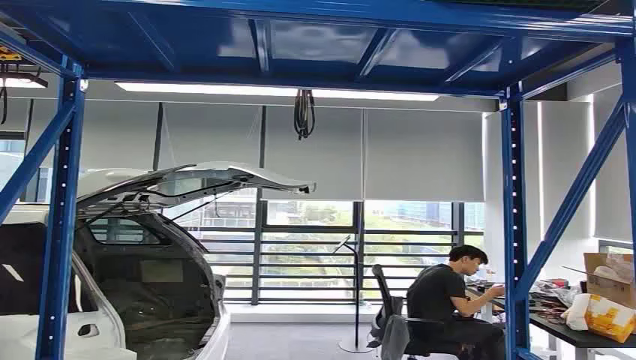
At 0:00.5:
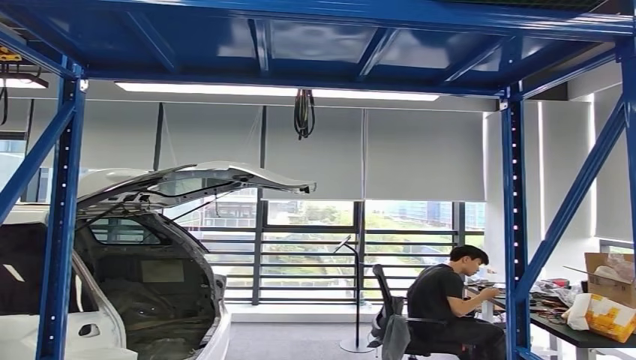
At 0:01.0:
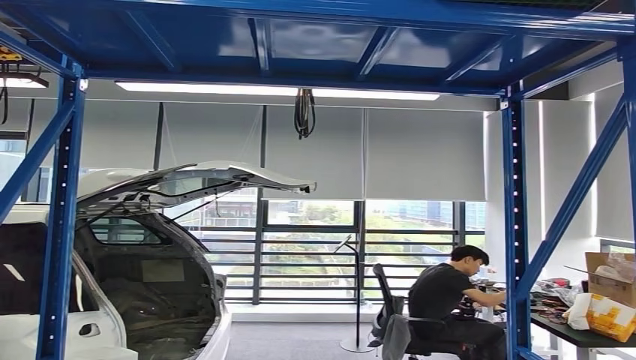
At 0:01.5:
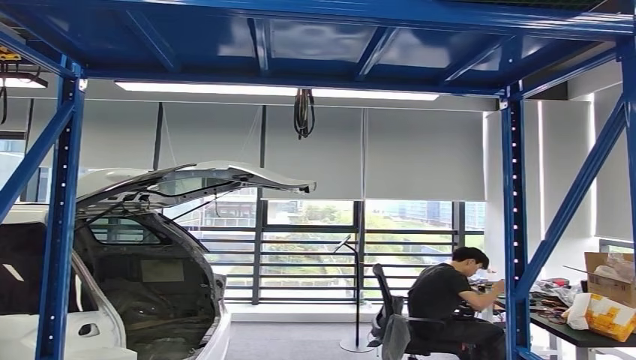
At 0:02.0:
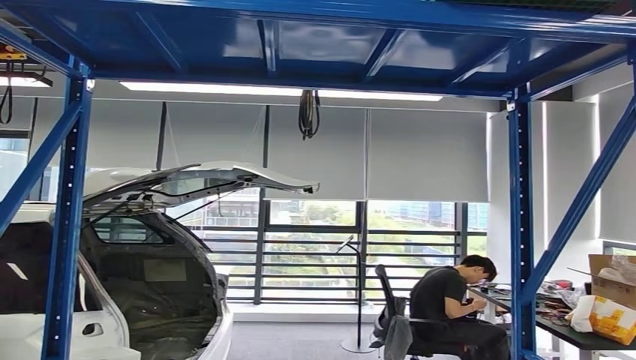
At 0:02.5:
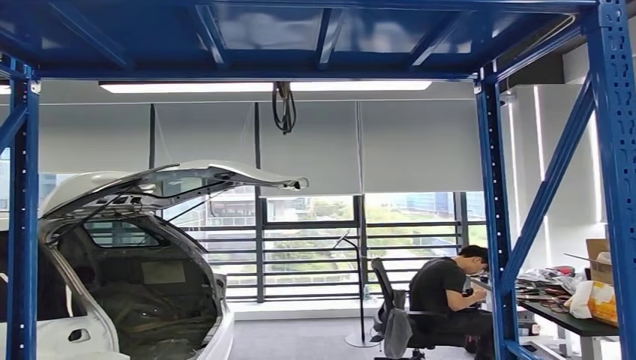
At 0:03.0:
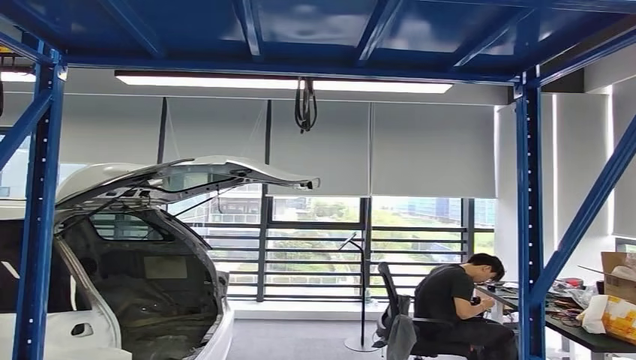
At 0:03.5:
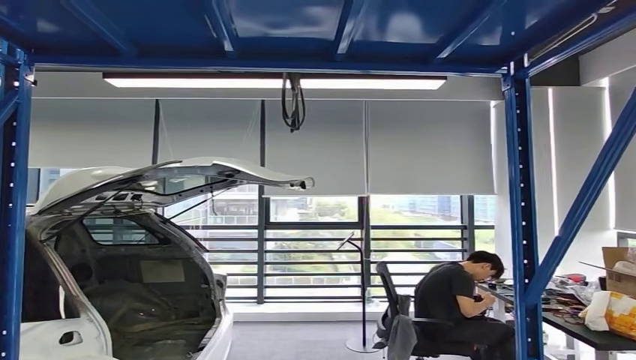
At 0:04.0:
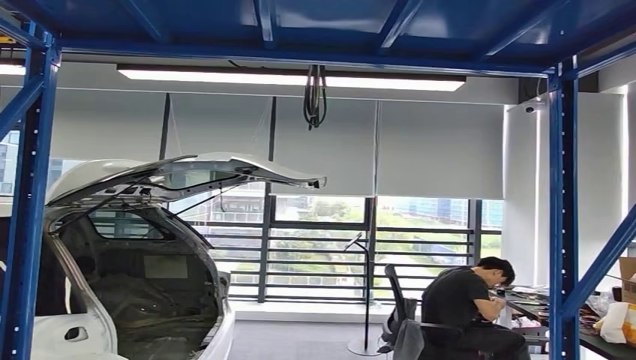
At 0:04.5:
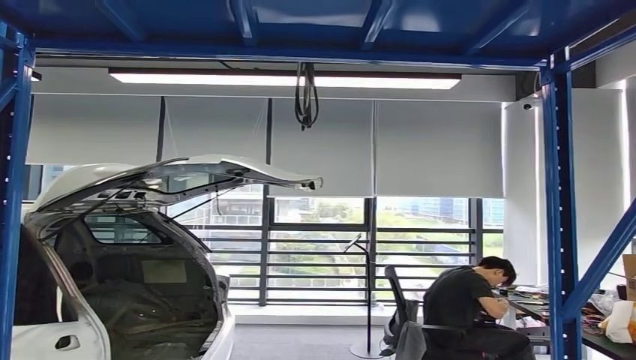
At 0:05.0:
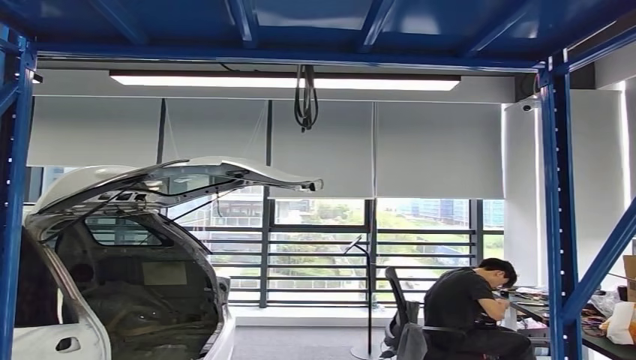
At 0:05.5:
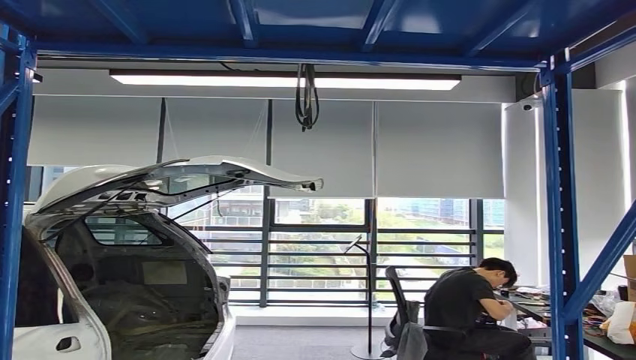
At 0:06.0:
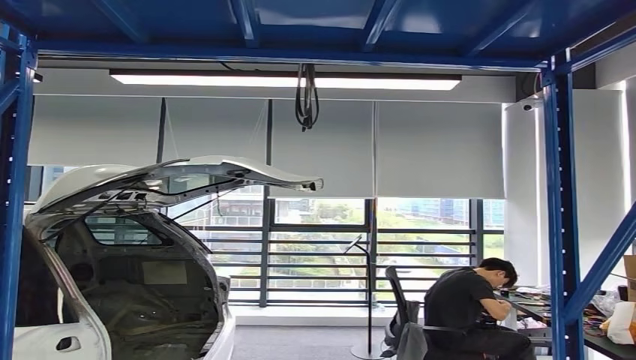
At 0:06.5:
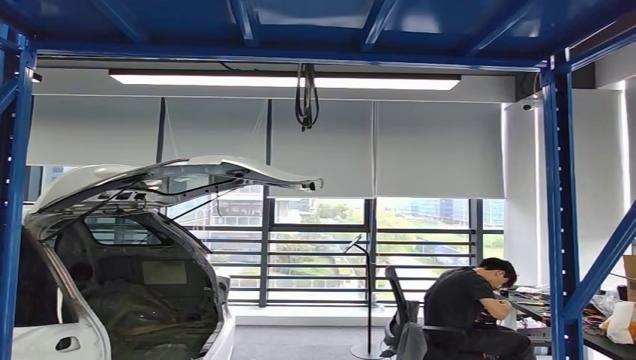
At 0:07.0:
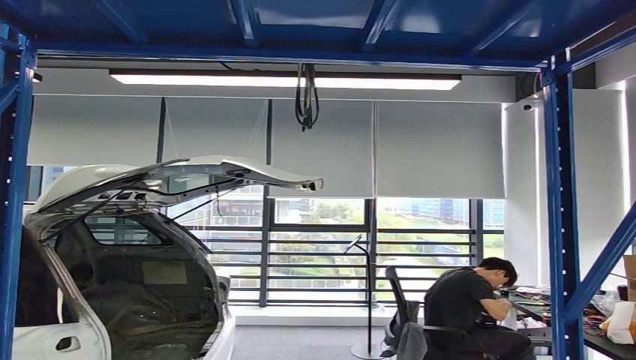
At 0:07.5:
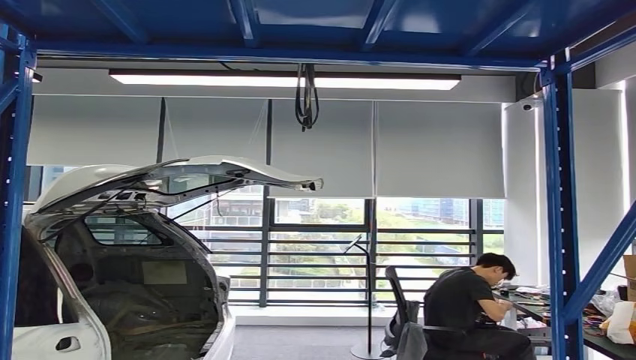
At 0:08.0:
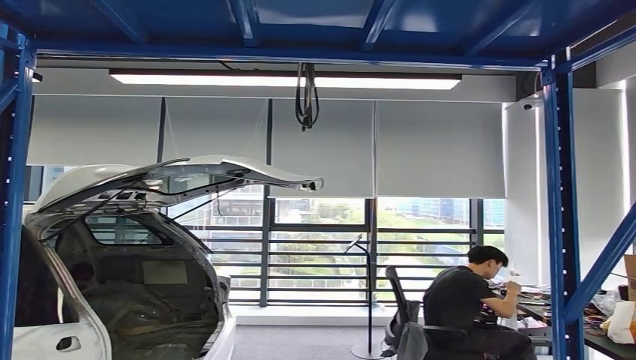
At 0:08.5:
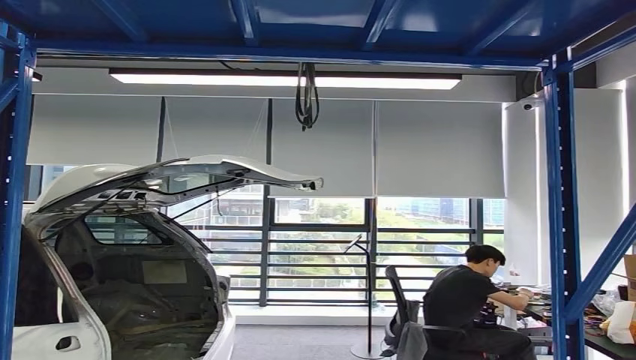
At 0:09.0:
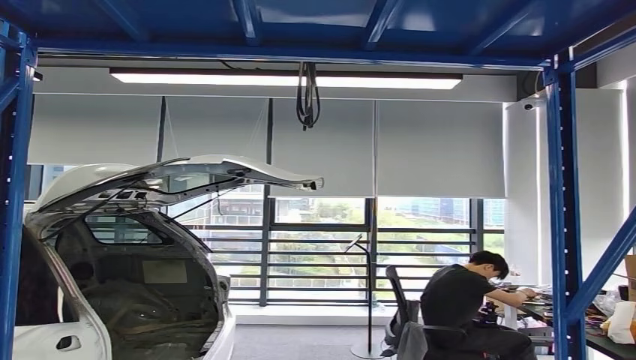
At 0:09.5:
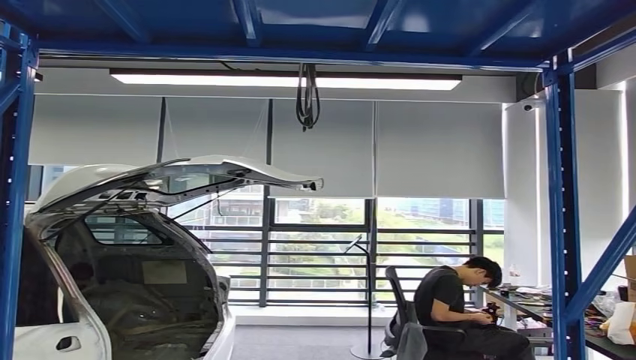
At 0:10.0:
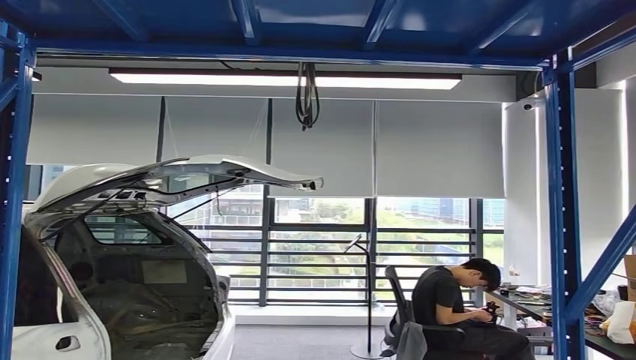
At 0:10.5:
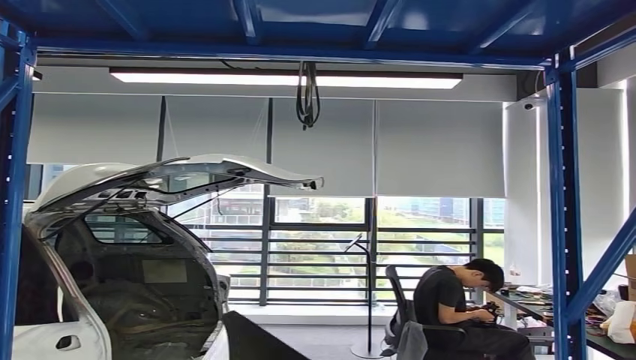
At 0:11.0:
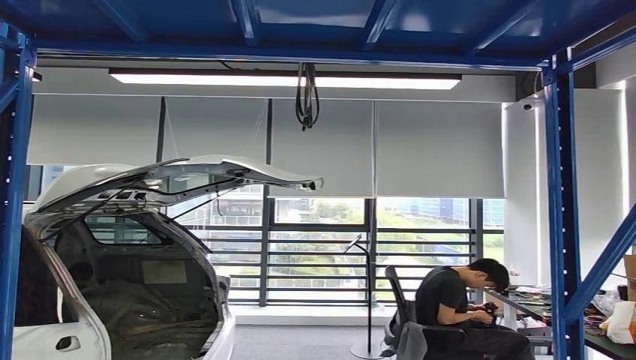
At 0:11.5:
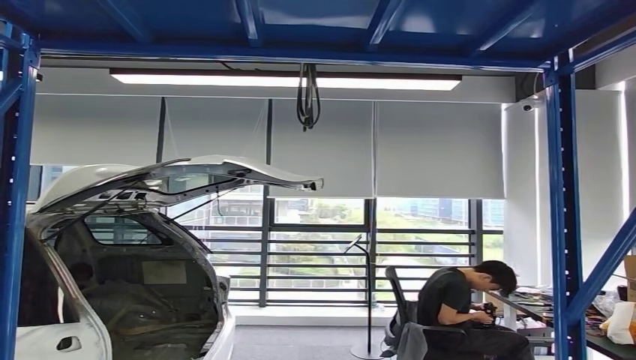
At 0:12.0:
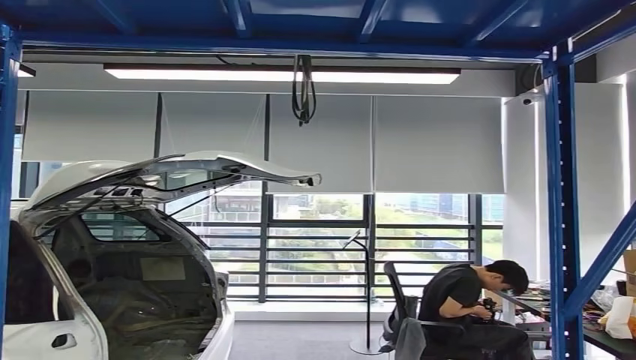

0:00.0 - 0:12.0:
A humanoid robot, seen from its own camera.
Step, 0:00.0 - 0:09.0: Pick up the small component from the shelf.
0:06.0 - 0:08.0: The right hand heads forward, covering about 10 cm.
0:08.0 - 0:10.0: The right hand shifts roughly 10 cm to the left.

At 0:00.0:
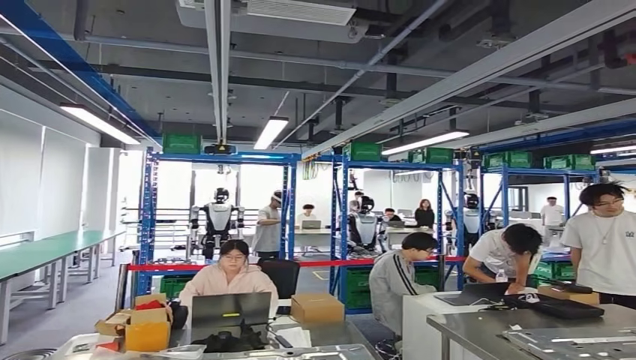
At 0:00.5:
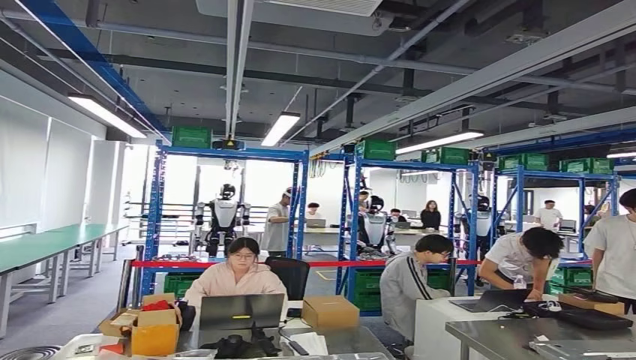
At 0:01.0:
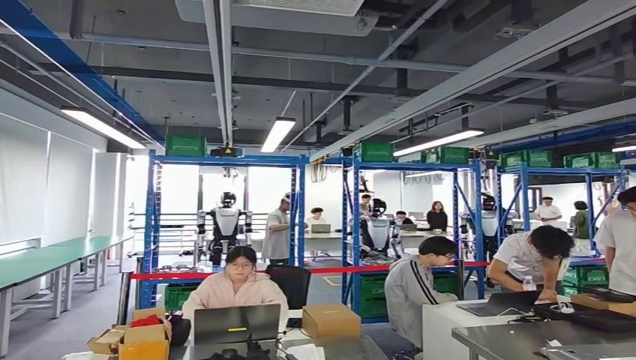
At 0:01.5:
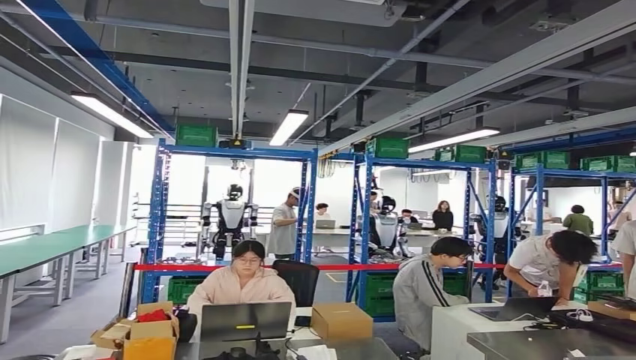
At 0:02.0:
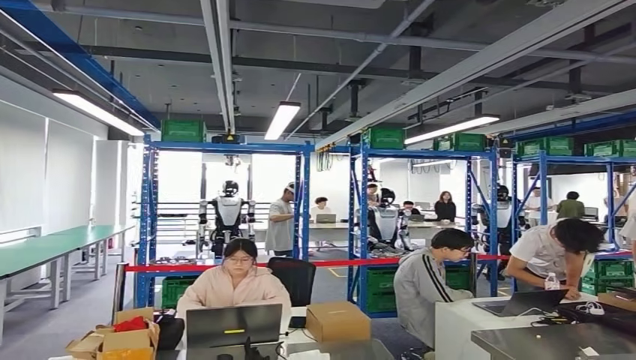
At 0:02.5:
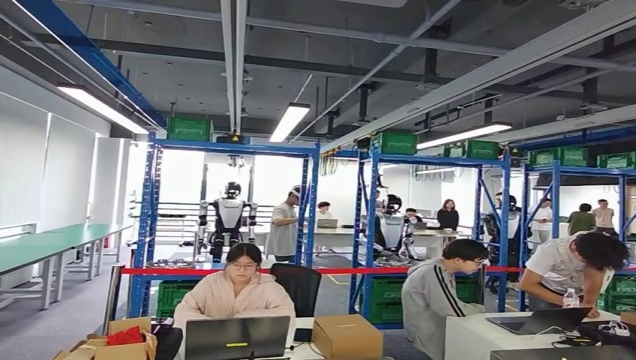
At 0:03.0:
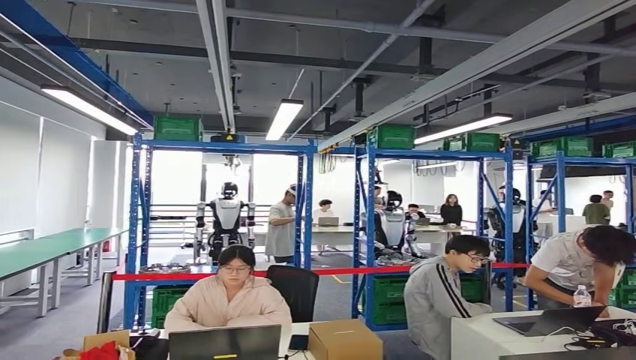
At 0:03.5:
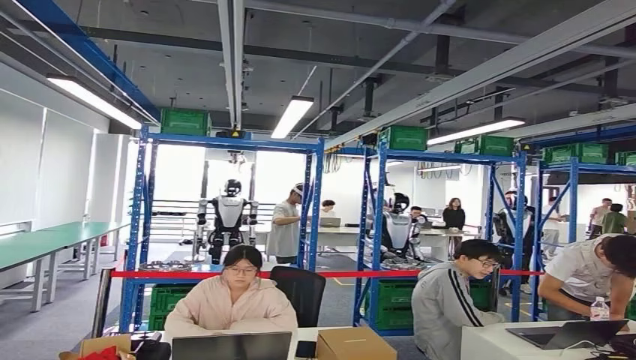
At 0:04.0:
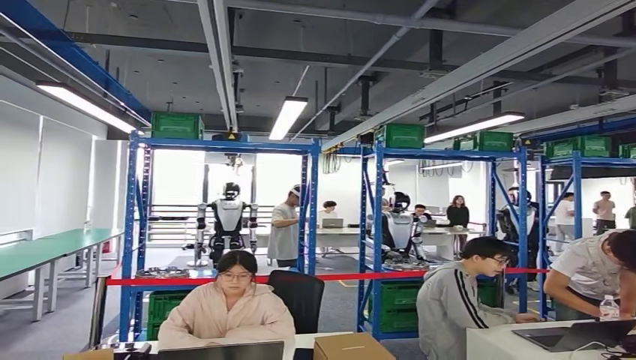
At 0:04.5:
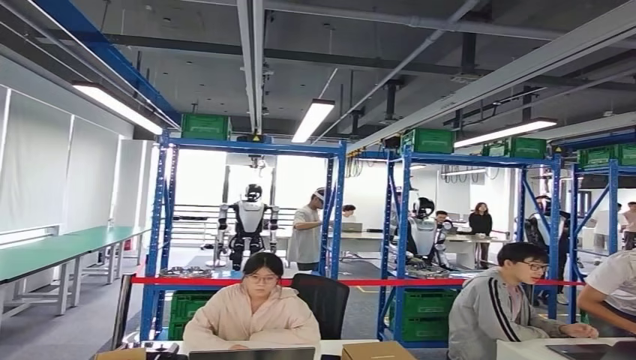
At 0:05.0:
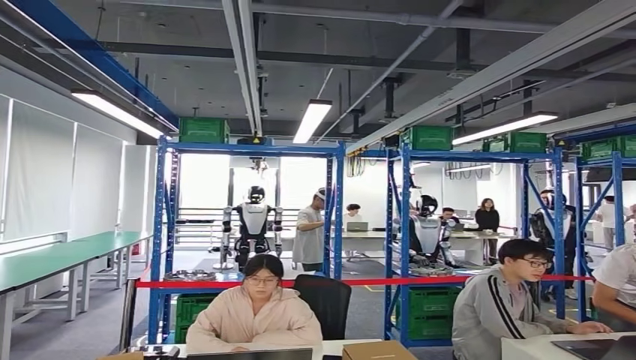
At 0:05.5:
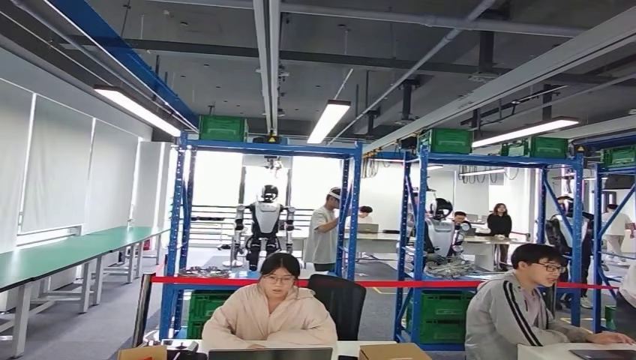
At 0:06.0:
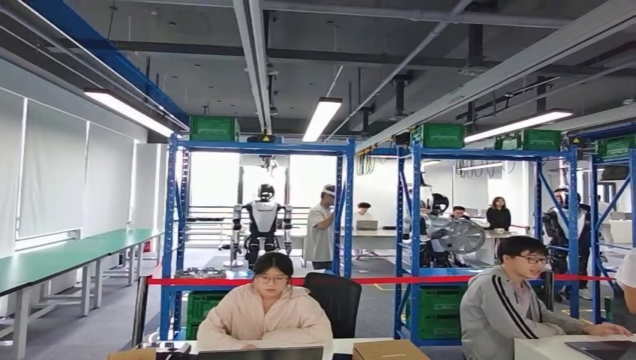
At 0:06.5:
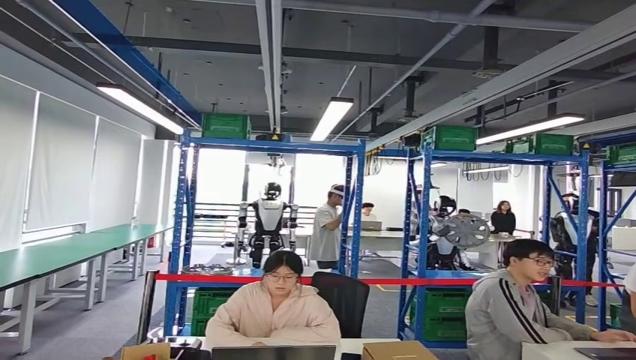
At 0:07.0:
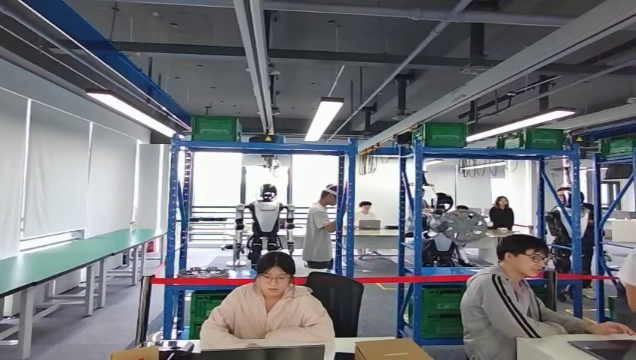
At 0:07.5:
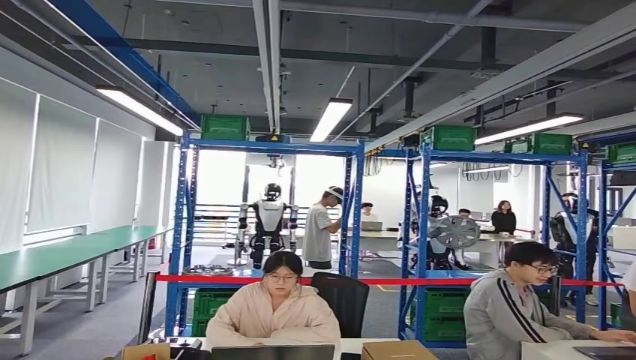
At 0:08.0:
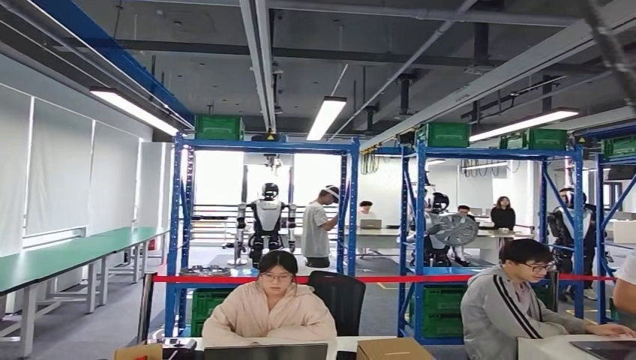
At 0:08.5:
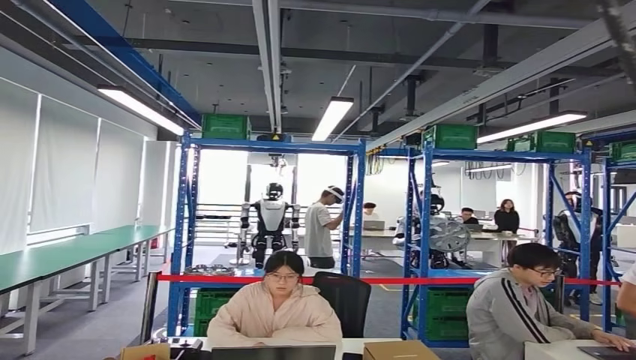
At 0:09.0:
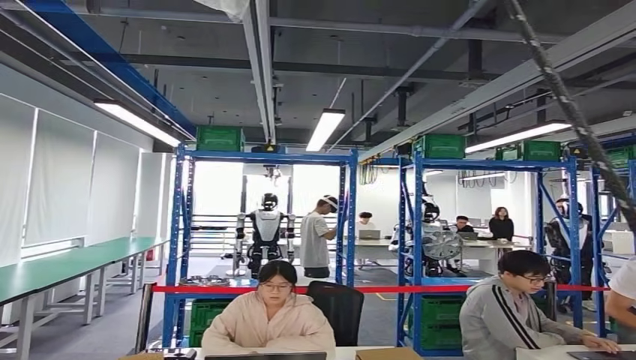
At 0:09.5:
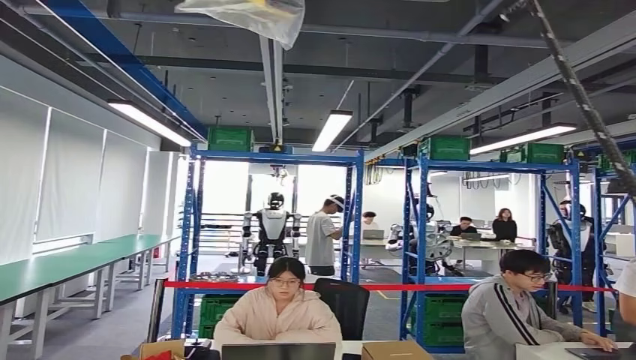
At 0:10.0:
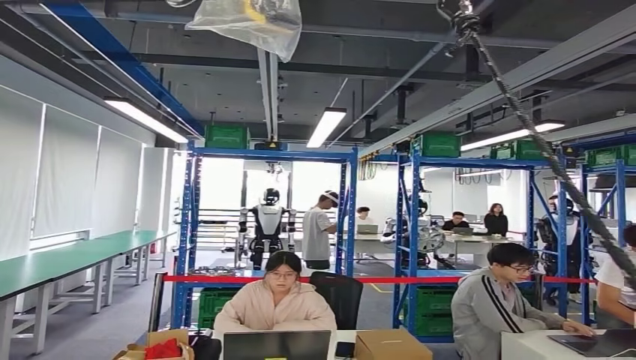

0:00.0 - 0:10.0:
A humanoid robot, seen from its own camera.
Step, 0:00.0 - 0:04.5: Move the small component to the workbench.
Step, 0:05.0 - 0:07.5: Insert the small component into the corresponding slot on the workbench.
